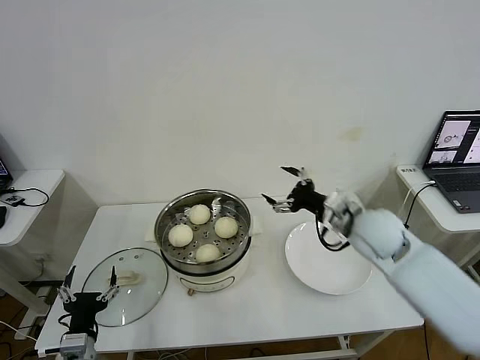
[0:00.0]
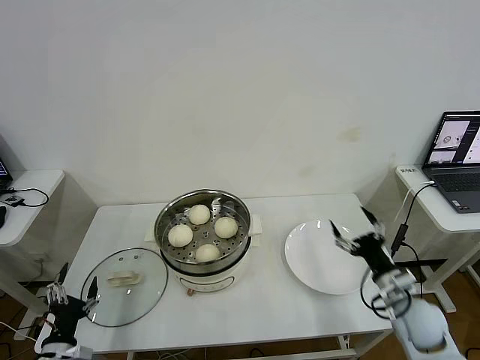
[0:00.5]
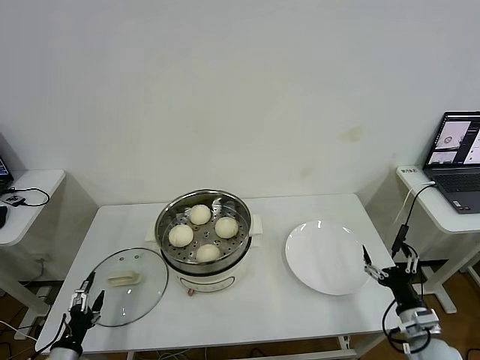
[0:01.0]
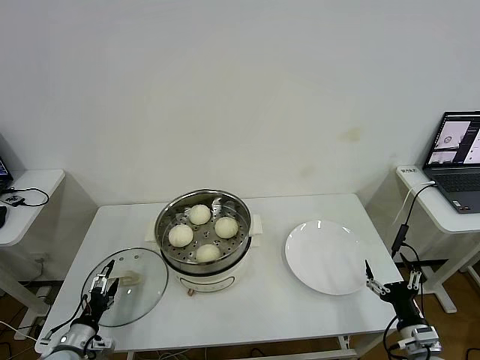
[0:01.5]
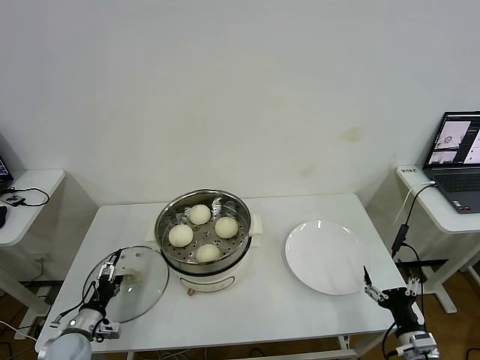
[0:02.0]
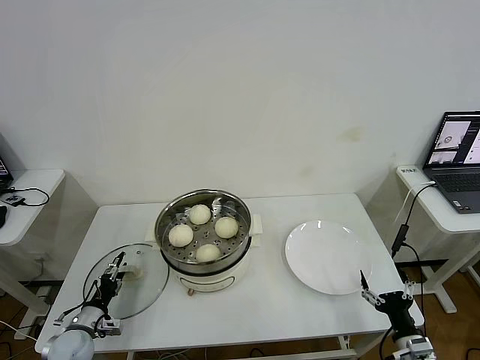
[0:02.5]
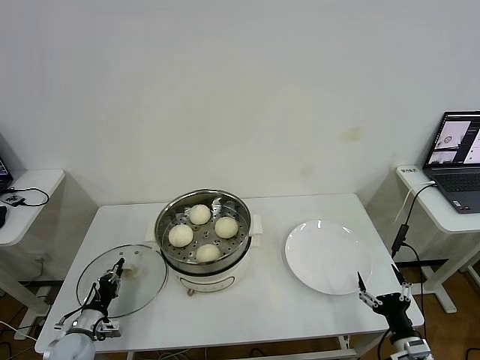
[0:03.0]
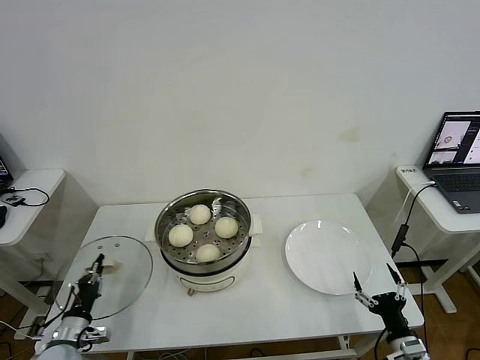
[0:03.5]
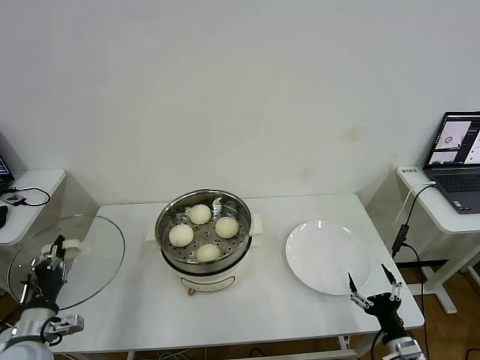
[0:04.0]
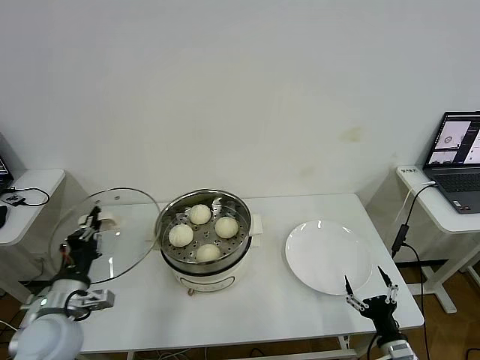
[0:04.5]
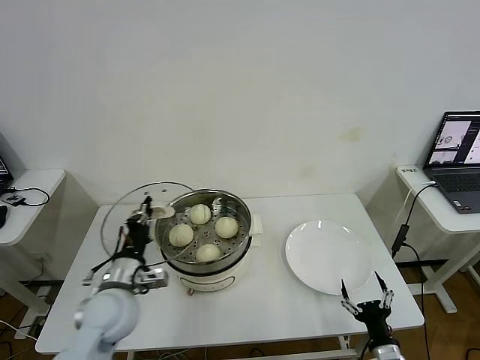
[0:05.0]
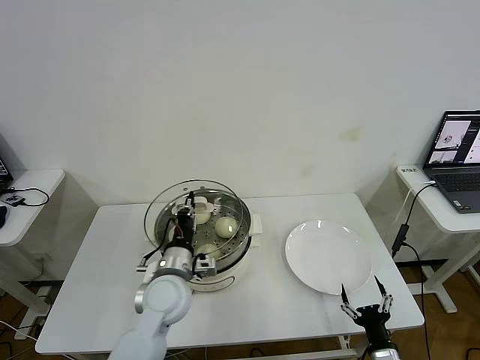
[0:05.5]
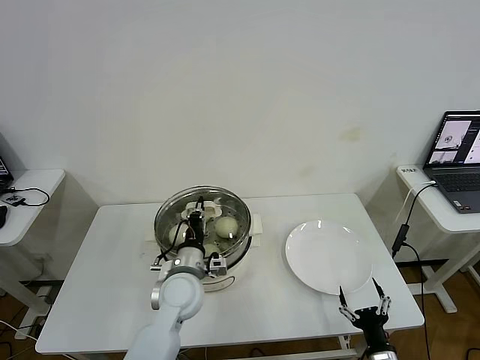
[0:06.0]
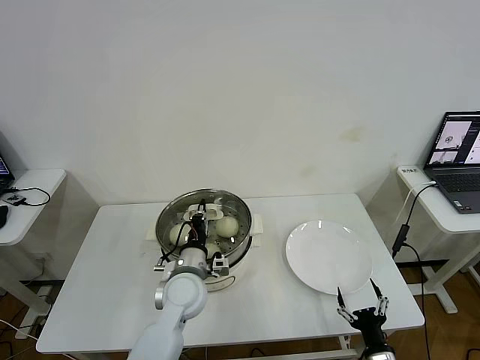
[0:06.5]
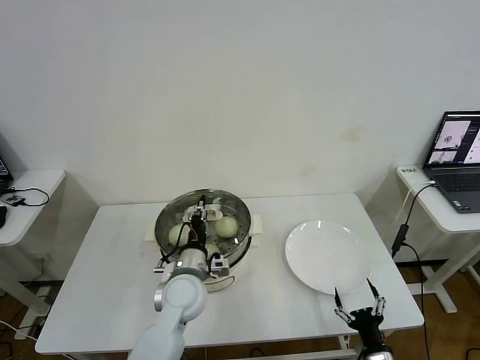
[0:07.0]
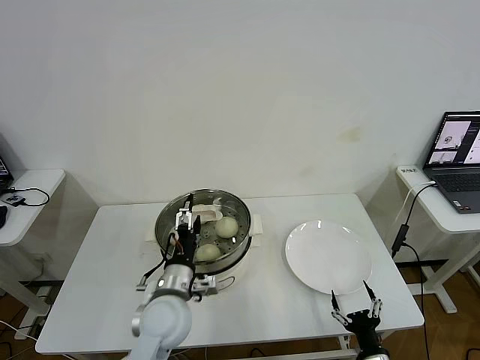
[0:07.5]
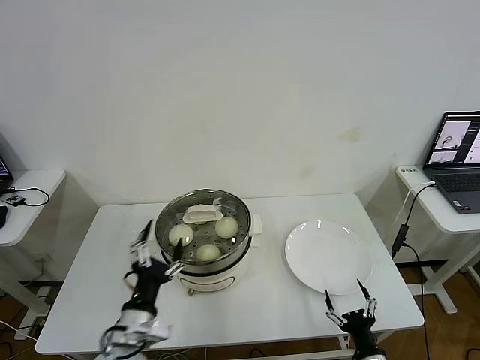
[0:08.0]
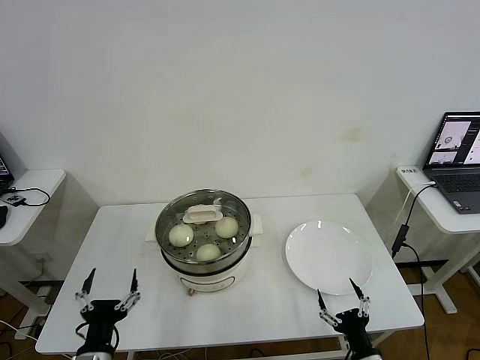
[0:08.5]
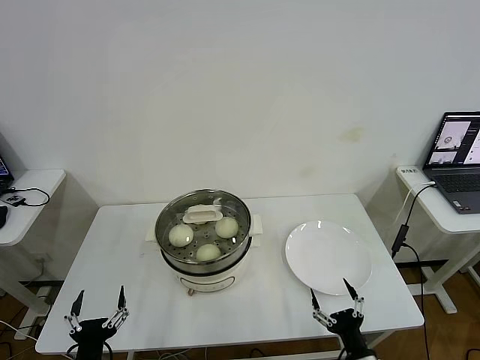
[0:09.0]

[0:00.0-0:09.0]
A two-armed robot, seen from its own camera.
Step, 0:00.0 to 0:03.0: Grasp the pot lid with left gripper.
Step, 0:03.5 to 0:07.0: Place the pot lid on the steamer with left gripper.
0:00.0 to 0:02.0: The right gripper shifts roughly 35 cm downward, backward and to the right, while the left gripper shifts roughly 15 cm to the left, forward and downward.
0:02.0 to 0:04.5: The left gripper goes approximately 20 cm upward, and closes its fingers.
0:04.5 to 0:07.0: The left gripper moves to the right and forward, approximately 25 cm.
0:07.0 to 0:09.0: The left gripper is displaced backward and to the left by roughly 30 cm, and opens up.

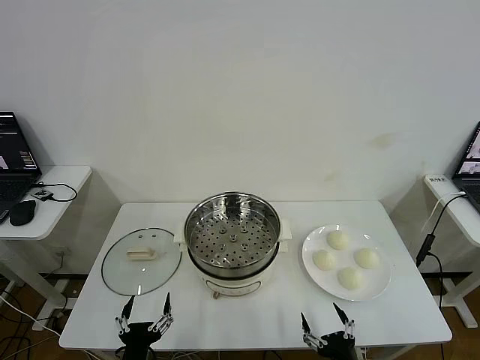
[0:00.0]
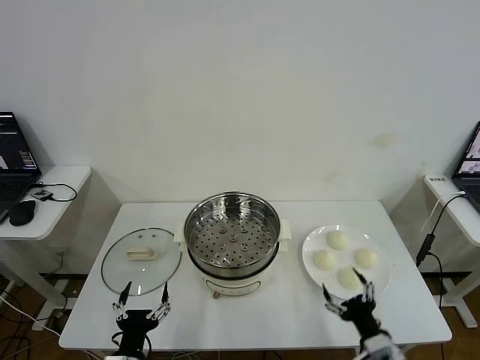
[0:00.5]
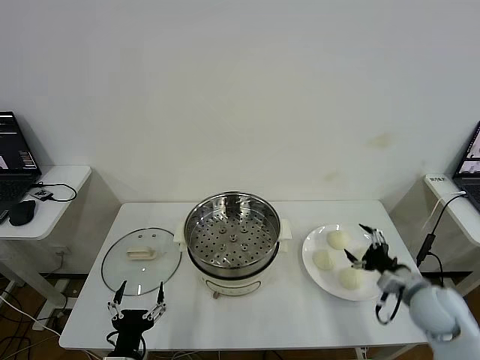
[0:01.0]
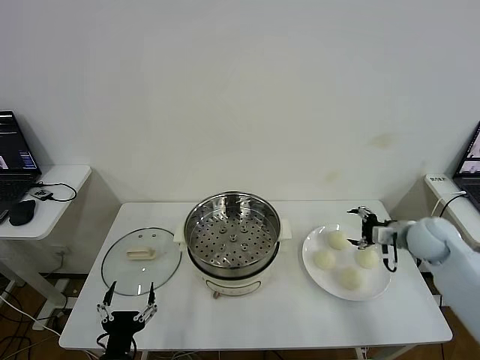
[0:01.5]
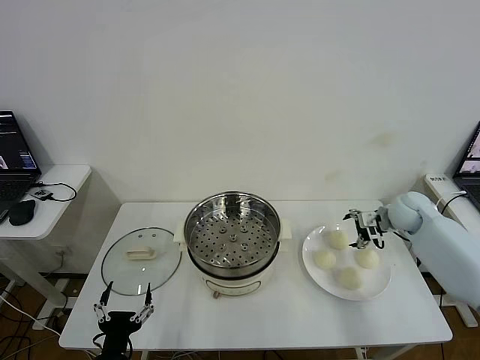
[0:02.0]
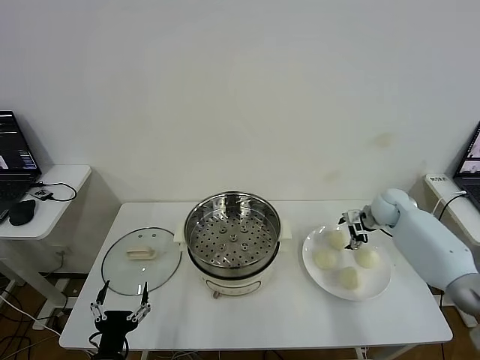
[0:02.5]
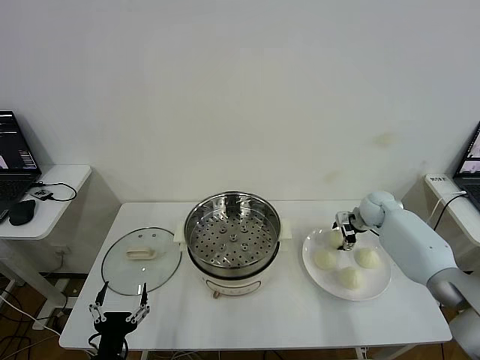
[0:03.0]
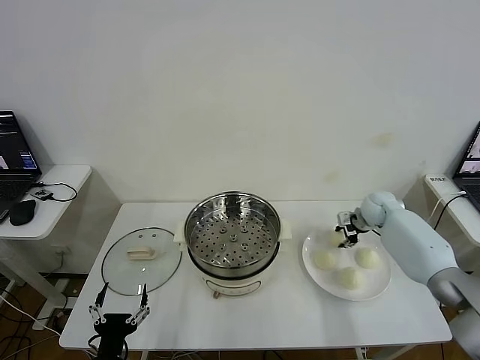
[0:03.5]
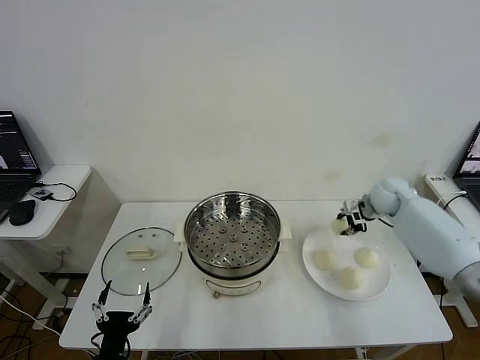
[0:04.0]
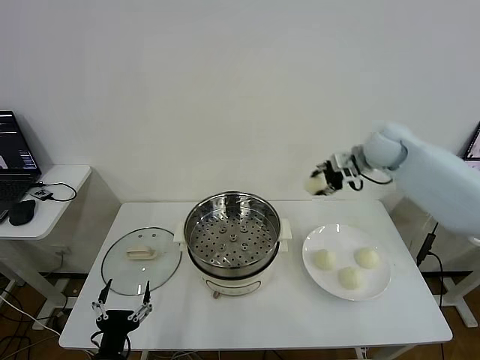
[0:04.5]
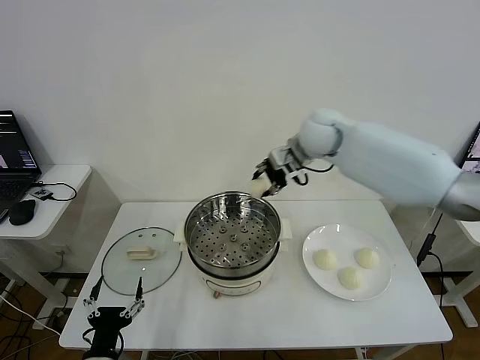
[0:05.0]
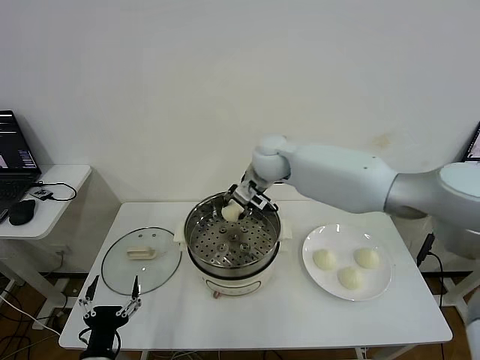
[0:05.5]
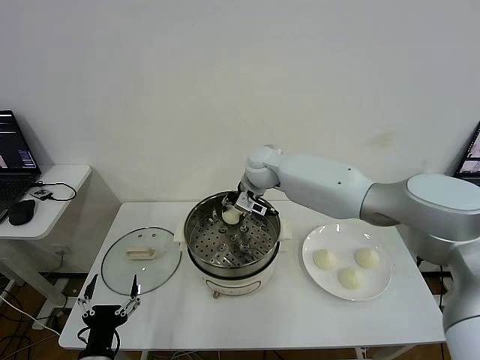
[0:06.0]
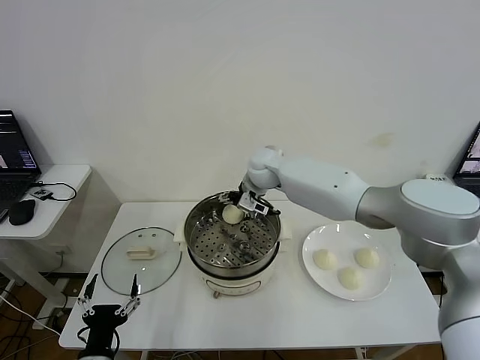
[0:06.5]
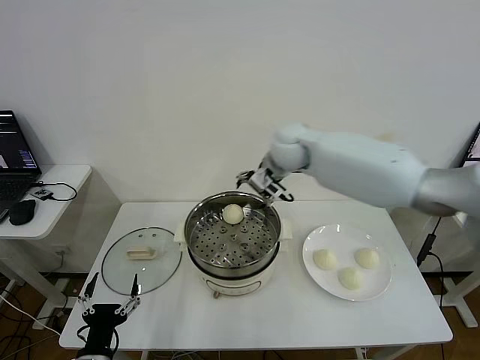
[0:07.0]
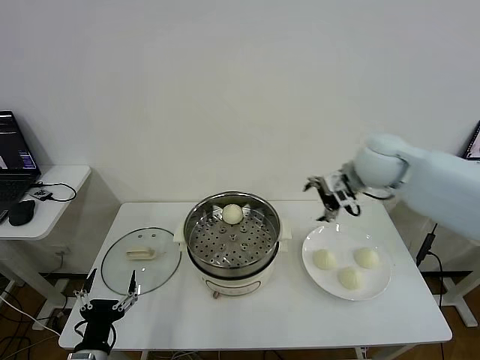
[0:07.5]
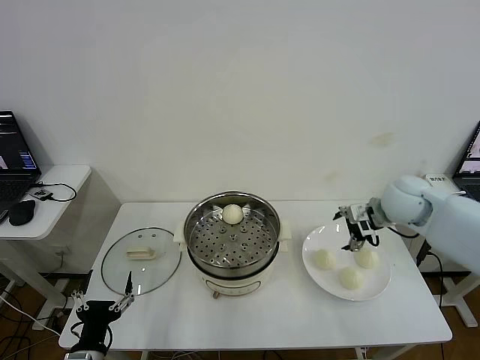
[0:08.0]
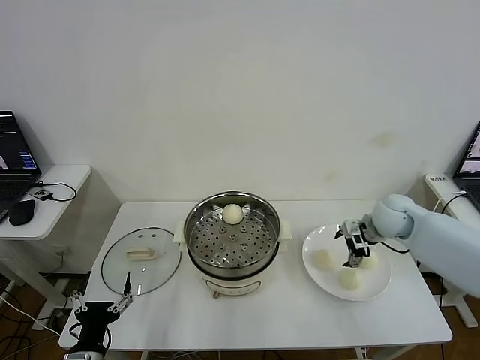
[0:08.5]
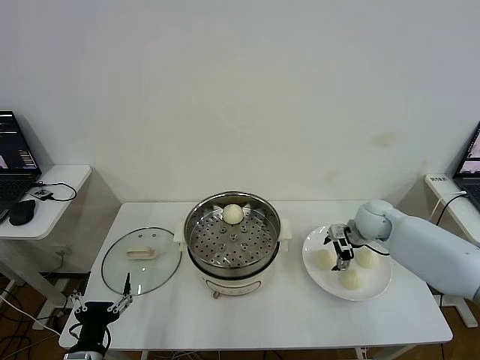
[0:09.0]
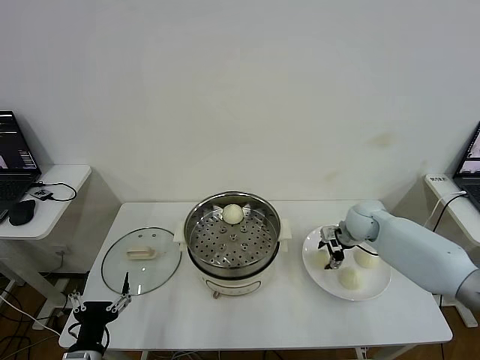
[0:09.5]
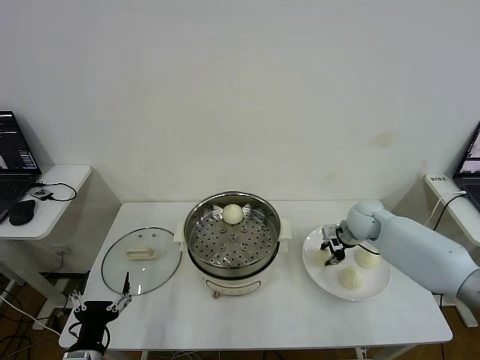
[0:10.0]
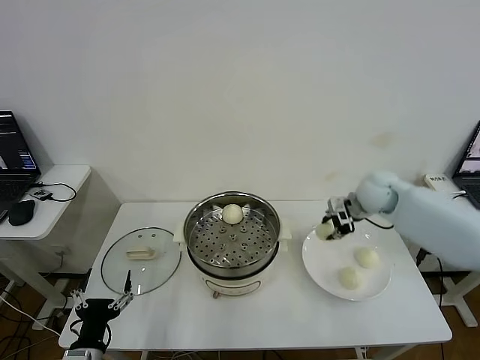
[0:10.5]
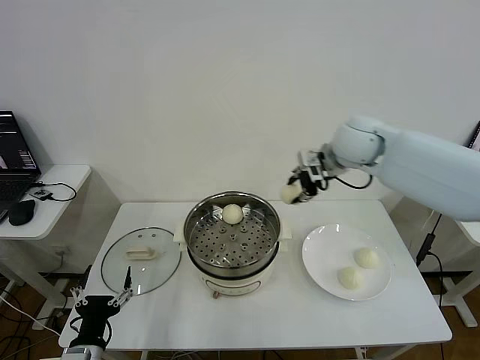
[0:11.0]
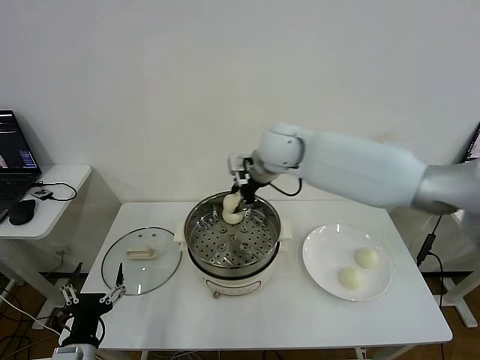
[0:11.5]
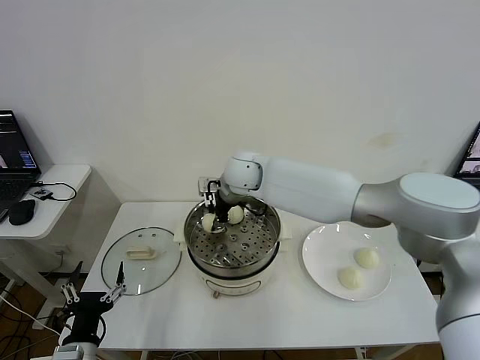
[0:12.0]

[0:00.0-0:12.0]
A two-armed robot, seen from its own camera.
Step, 0:00.0 to 0:03.5: Grasp the baozi in the plate with right gripper.
Step, 0:04.0 to 0:06.5: Place the baozi on the steamer with right gripper.
Step, 0:07.0 to 0:09.5: Grasp the baozi in the plate with right gripper.
0:02.0 to 0:04.0: The right gripper changes place by some 5 cm, and closes up.
0:04.0 to 0:06.0: The right gripper shifts approximately 35 cm to the left.
0:06.0 to 0:08.0: The right gripper is displaced to the right by about 30 cm, and opens.
0:08.0 to 0:10.0: The right gripper travels downward and forward by roughly 10 cm, and closes its fingers.
0:10.0 to 0:12.0: The right gripper shifts approximately 35 cm to the left and upward.

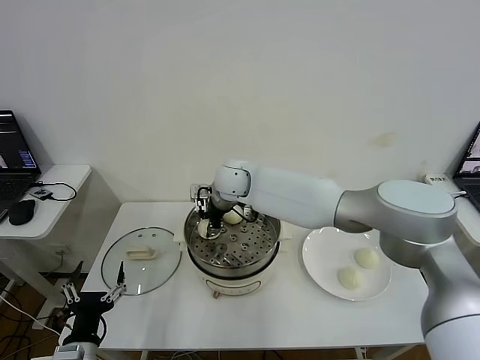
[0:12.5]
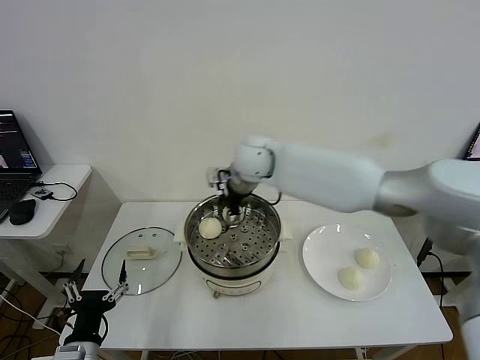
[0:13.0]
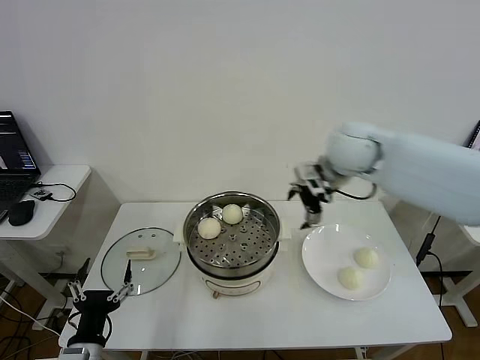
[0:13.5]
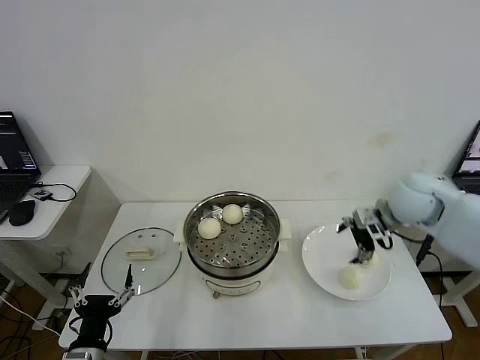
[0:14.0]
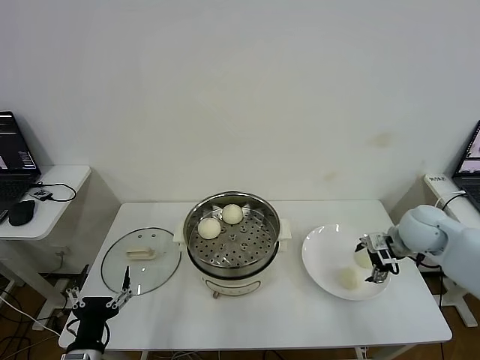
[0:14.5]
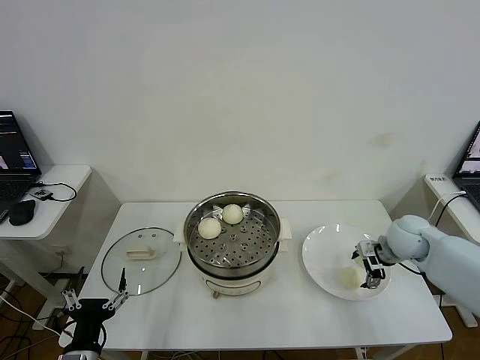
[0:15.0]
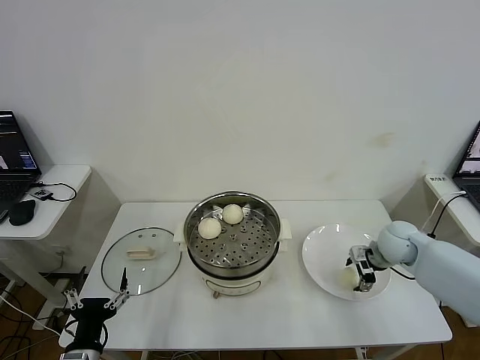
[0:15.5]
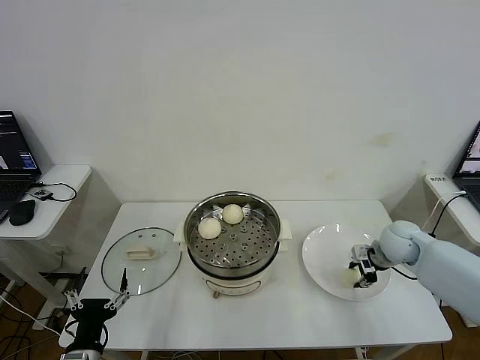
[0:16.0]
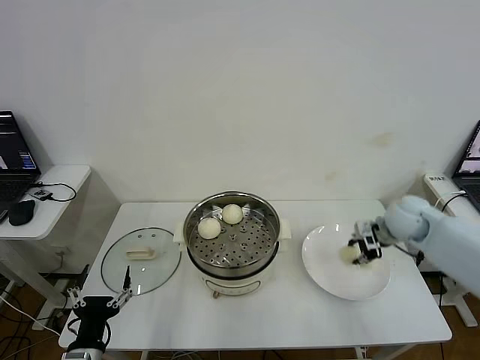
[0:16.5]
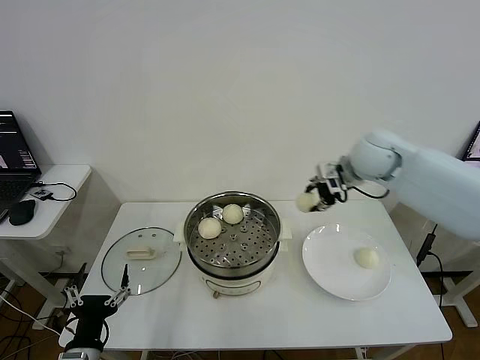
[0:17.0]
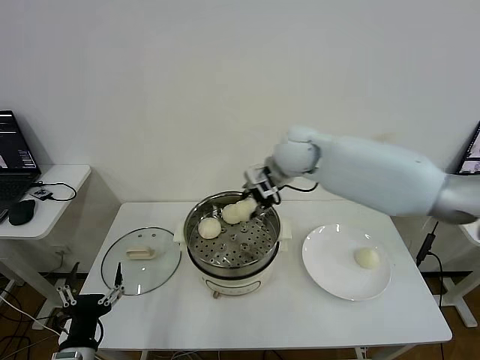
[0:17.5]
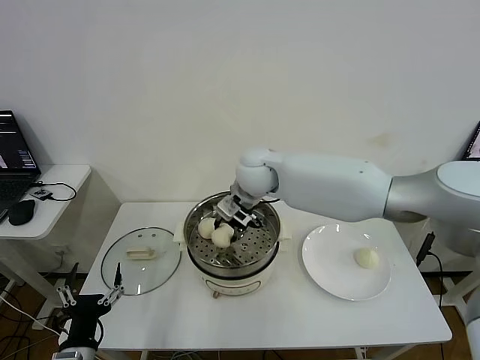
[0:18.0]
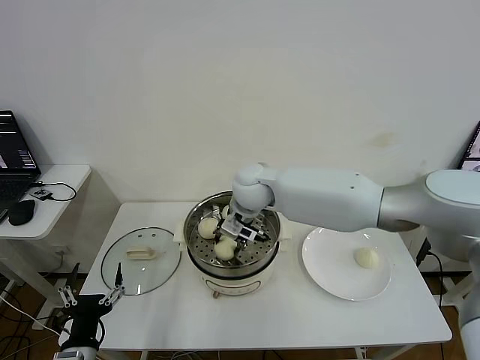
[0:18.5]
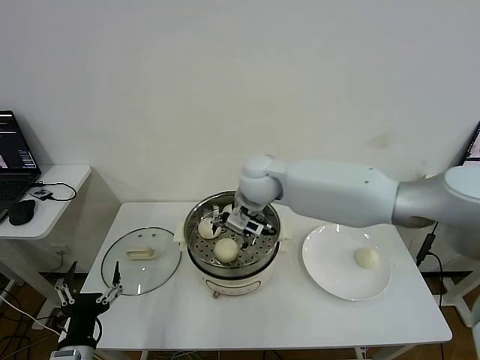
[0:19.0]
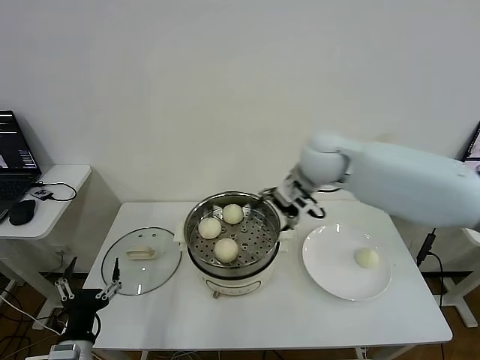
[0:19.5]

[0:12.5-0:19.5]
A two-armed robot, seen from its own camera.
Step, 0:13.0 to 0:16.0: Grasp the baozi in the plate with right gripper.
Step, 0:16.5 to 0:18.5: Place the baozi on the steamer with right gripper.
0:12.5 to 0:14.5: The right gripper travels to the right by about 40 cm, and opens up.
0:14.5 to 0:16.0: The right gripper heads downward, covering some 5 cm, and closes.
0:16.0 to 0:17.5: The right gripper goes roughly 35 cm to the left and upward.
0:17.5 to 0:19.5: The right gripper shifts about 10 cm to the right, and opens its fingers.
